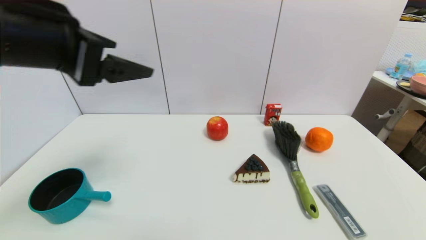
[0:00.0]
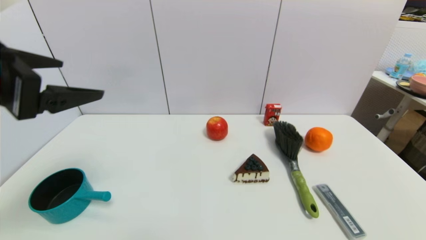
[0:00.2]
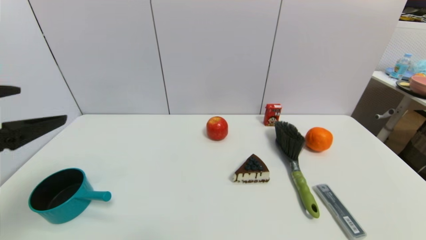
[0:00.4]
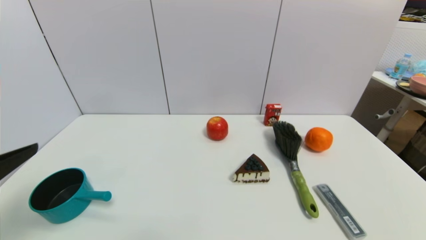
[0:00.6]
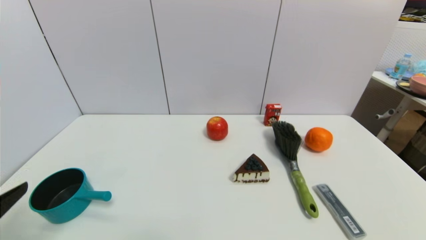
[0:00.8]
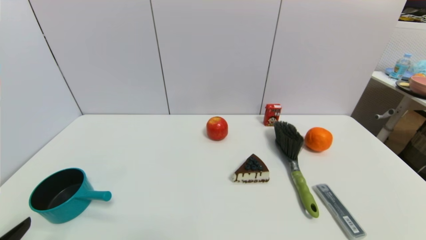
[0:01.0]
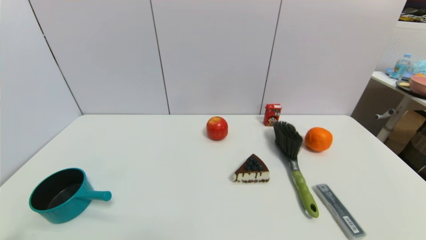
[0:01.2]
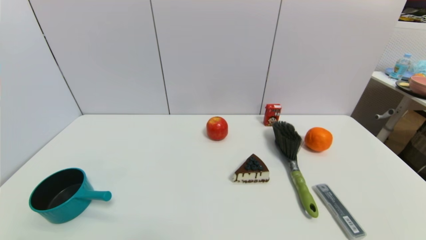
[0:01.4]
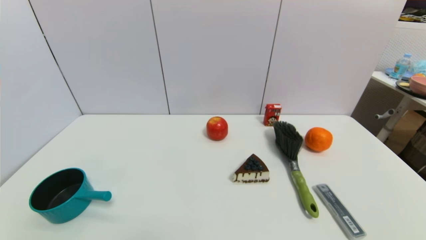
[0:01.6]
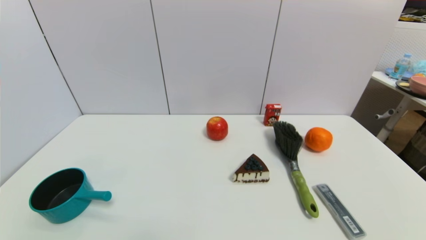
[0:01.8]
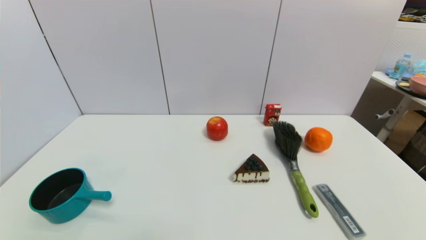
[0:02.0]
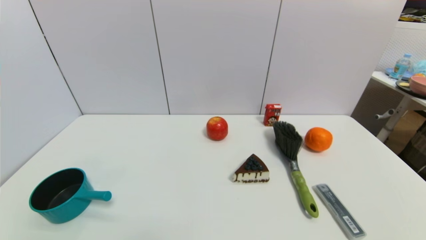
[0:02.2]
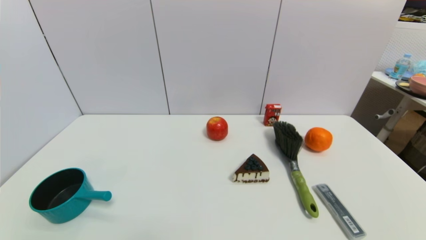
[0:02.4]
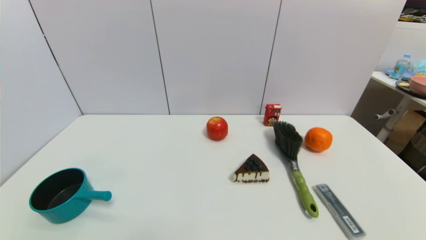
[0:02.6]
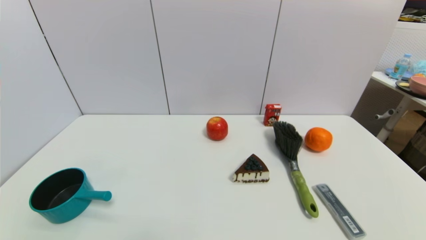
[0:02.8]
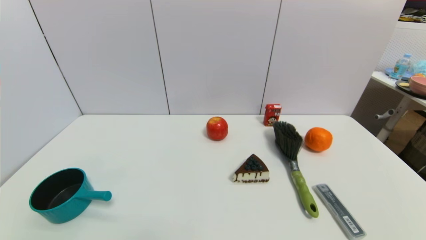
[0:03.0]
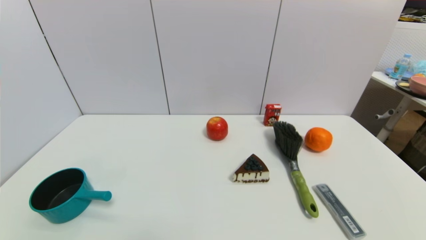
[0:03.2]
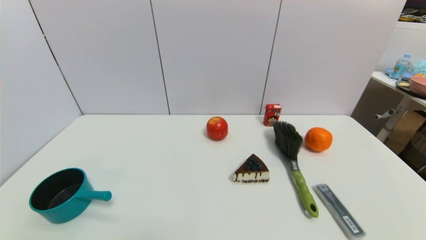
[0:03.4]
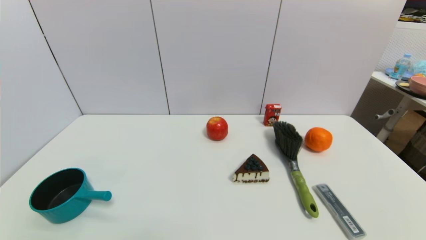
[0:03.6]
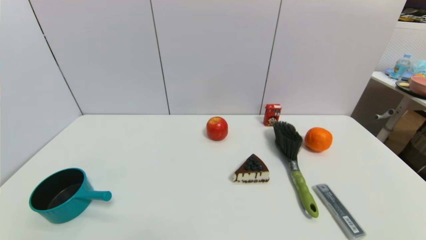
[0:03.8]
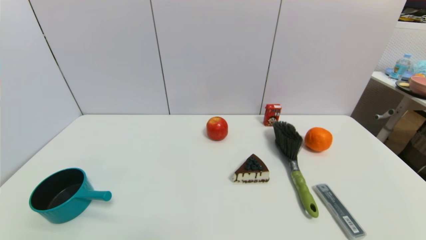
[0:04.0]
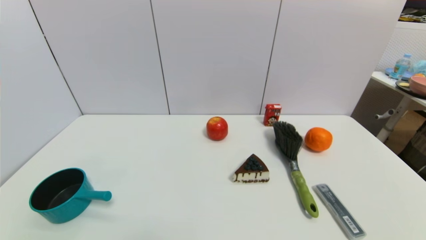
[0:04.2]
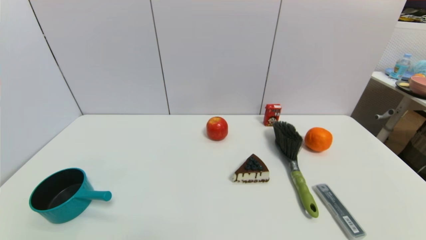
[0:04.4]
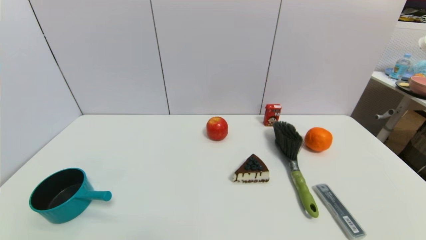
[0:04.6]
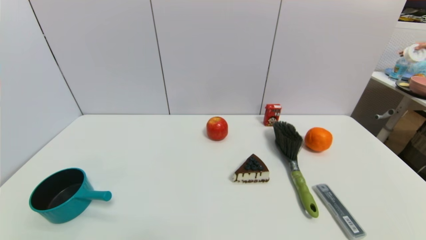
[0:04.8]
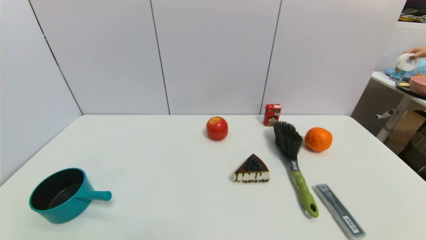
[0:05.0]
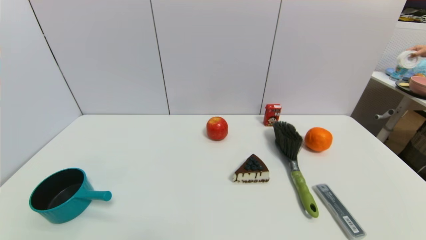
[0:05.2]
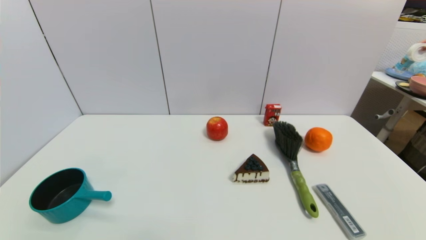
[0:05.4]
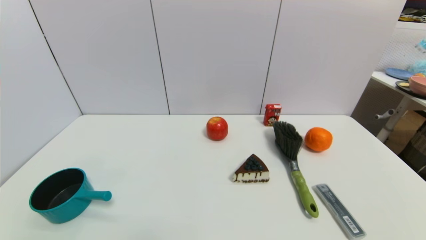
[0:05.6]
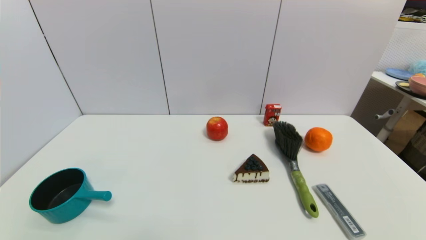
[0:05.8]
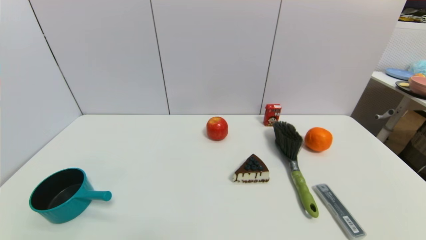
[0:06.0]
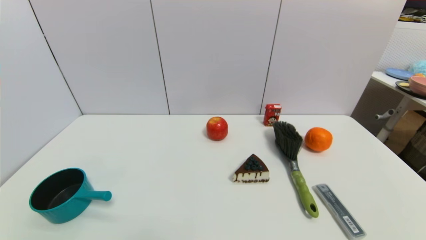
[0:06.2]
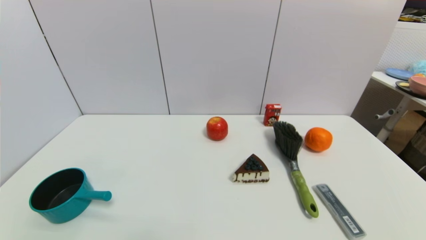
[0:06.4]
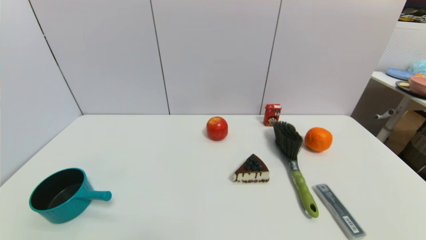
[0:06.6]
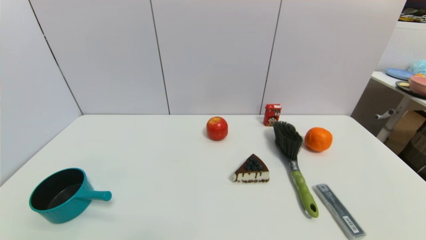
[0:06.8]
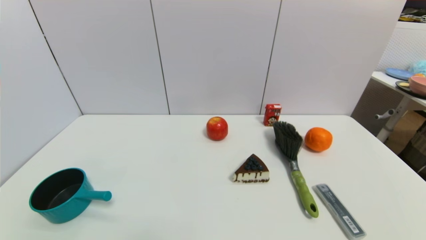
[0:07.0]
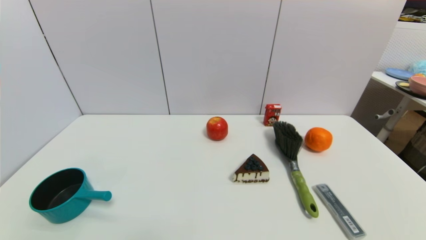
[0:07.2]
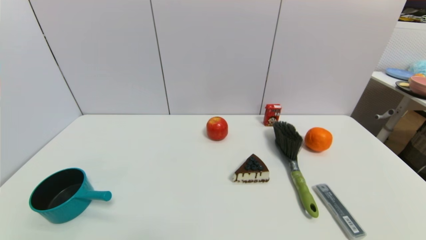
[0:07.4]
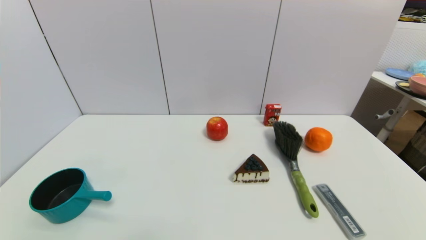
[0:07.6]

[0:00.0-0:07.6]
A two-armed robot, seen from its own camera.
Task of the whole recording: put the brush in the designated position.
0:00.0 to 0:01.6: The left gripper is displaced downward and backward by approximately 35 cm.
0:03.0 to 0:07.6: Both grippers stay about where they are.
